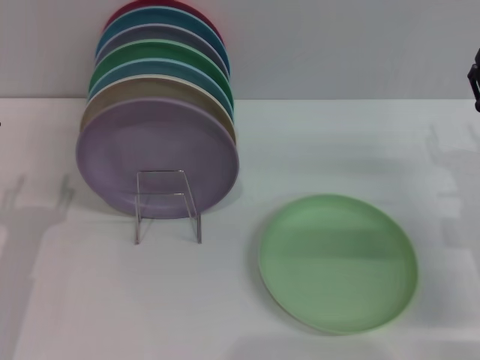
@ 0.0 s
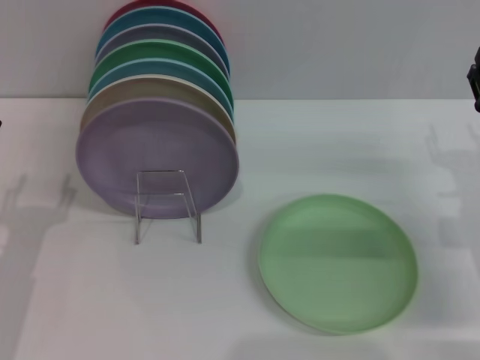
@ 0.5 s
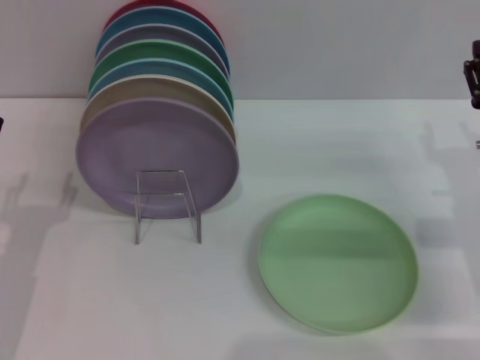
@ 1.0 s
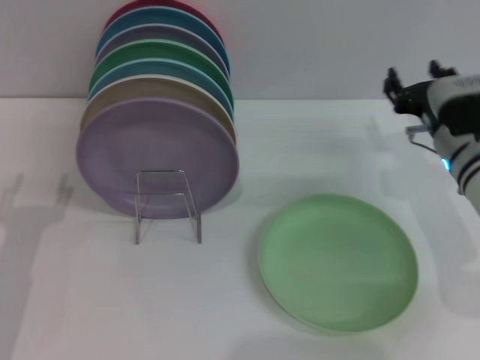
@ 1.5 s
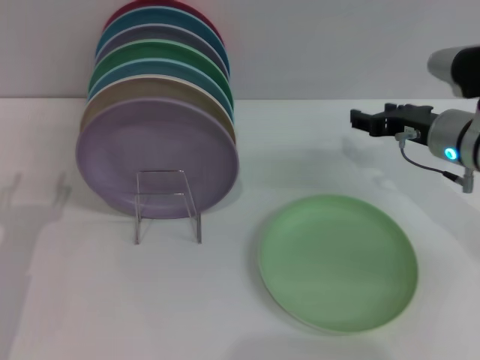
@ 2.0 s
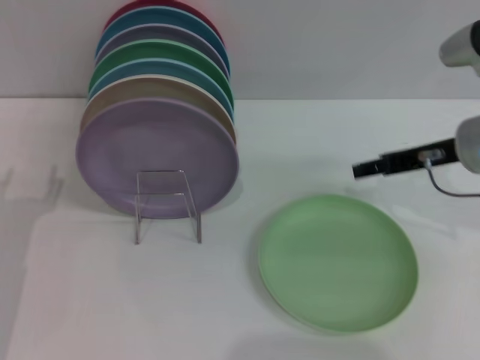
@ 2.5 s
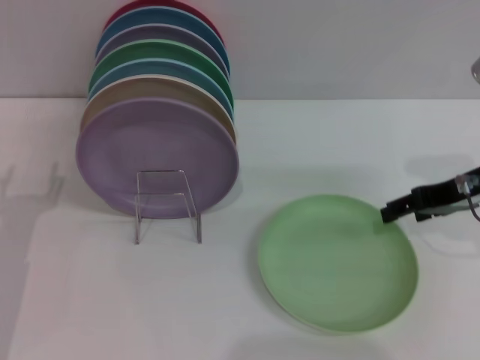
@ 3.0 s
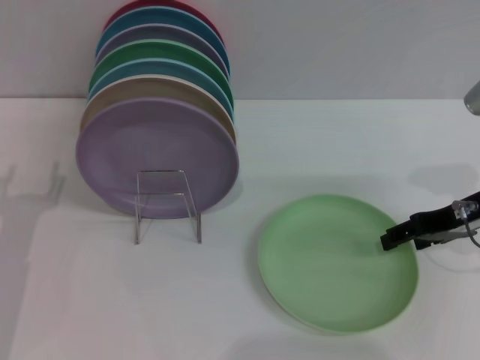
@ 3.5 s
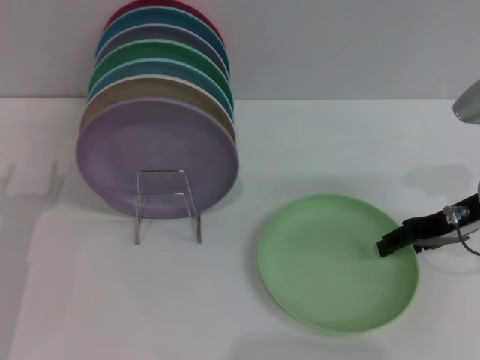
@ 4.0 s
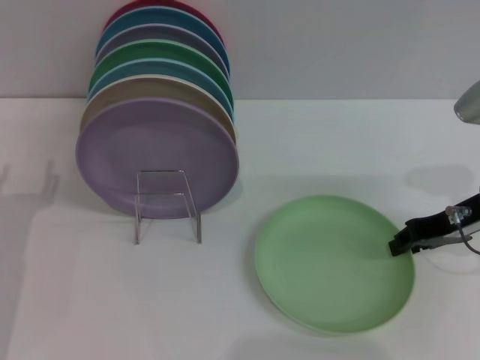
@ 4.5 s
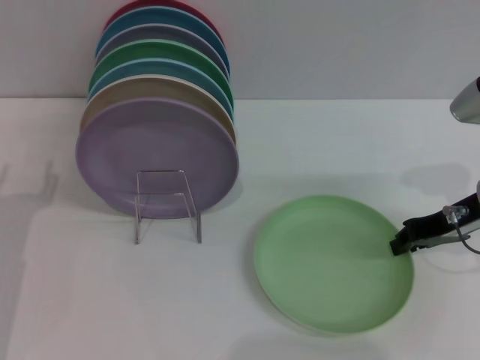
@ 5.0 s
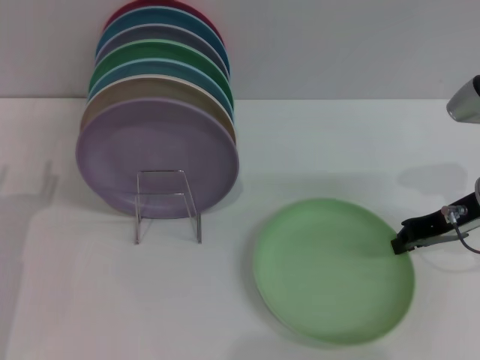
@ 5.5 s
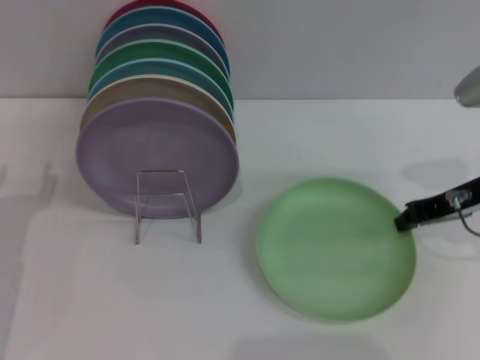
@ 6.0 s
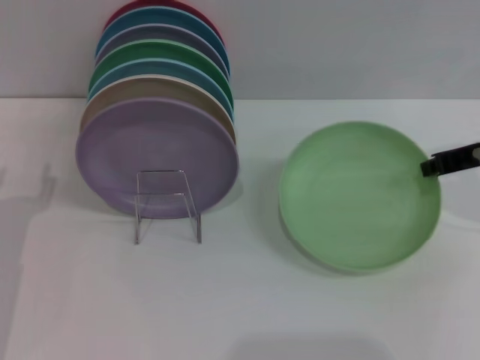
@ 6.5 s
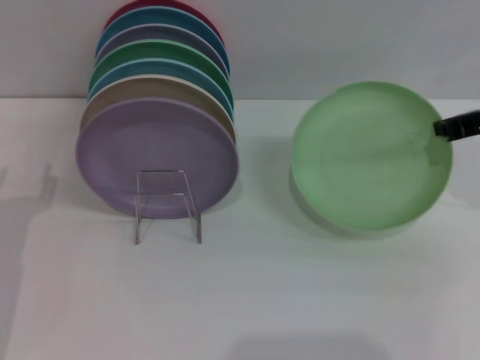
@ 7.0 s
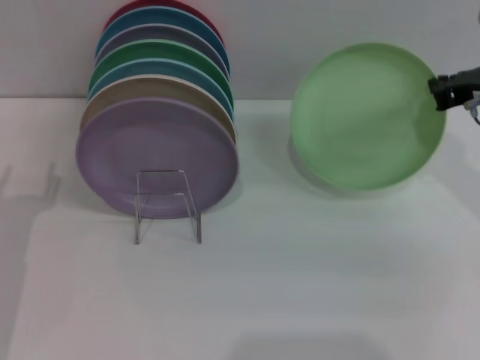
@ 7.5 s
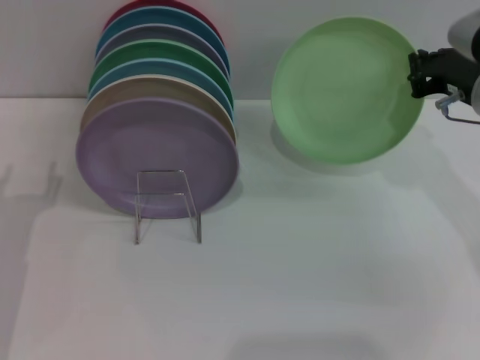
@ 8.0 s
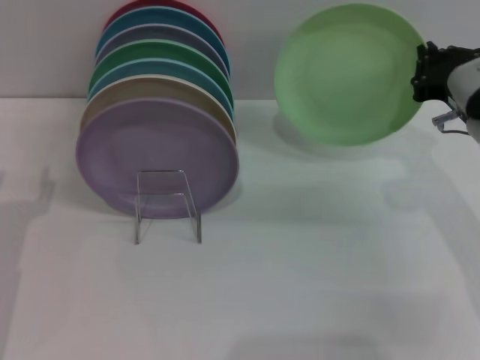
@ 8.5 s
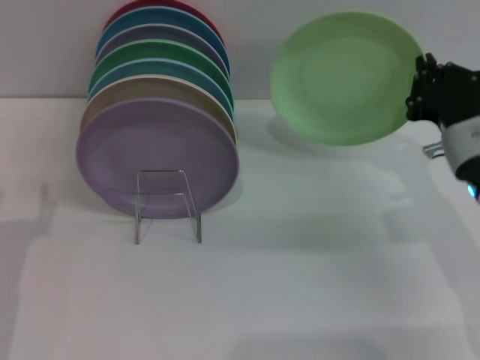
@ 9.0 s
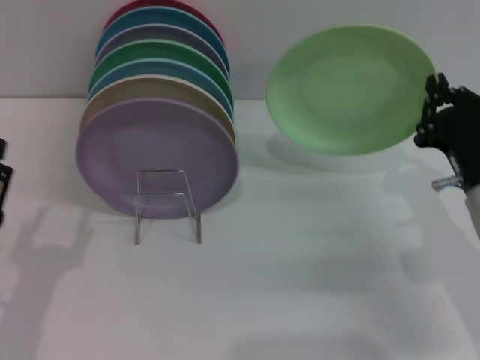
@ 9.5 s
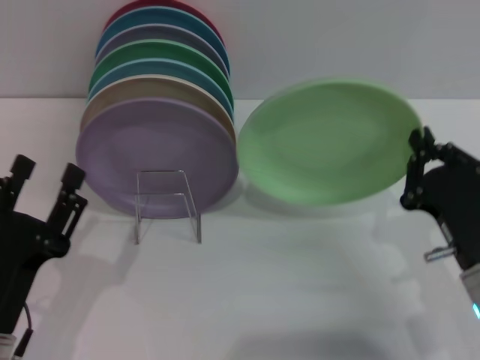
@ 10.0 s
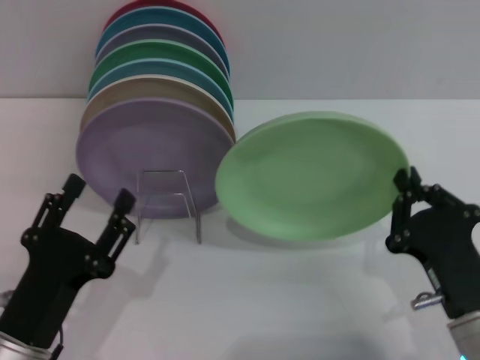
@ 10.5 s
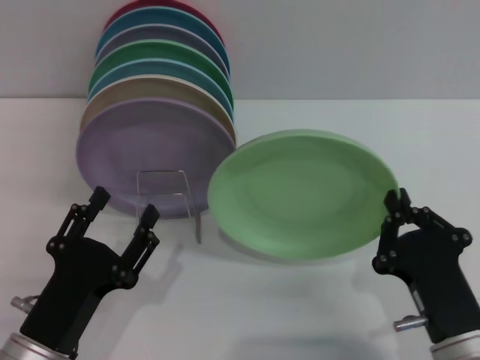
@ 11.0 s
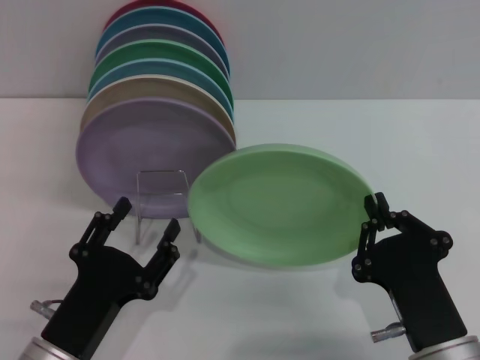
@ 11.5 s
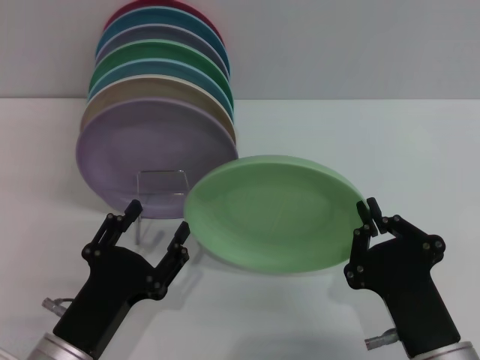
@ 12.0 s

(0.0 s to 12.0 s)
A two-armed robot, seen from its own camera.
Task of the whole recording: Grip the plate with one hand, pass it to the other, then set it on the shelf.
Step, 0.0 s - 6.5 s: Pick up the plate with the right gripper.
0.0 s - 2.0 s: The right gripper goes roughly 5 cm forward.
2.0 s - 4.0 s: The right gripper shifts by roughly 5 cm.
4.0 s - 6.0 s: The right gripper closes up.
8.0 s - 10.0 s: The right gripper travels backward and downward by roughly 20 cm. Meanwhile the left gripper travels backward and to the right by approximately 10 cm.
10.0 s - 12.0 s: The left gripper heads to the right, covering approximately 5 cm; the right gripper shifts about 10 cm backward and to the left.

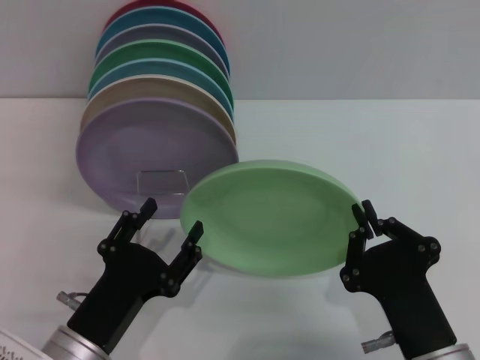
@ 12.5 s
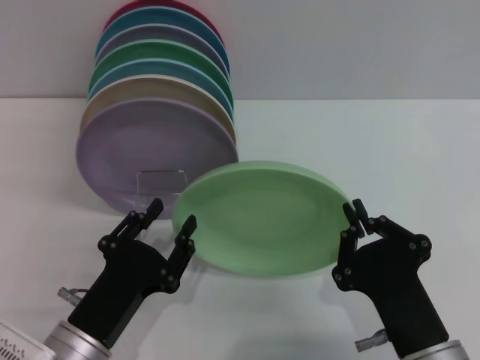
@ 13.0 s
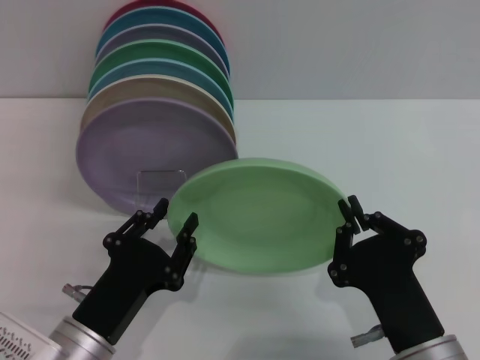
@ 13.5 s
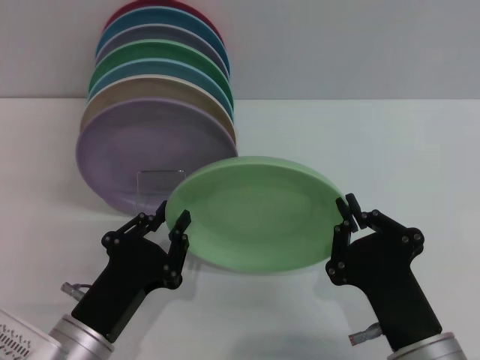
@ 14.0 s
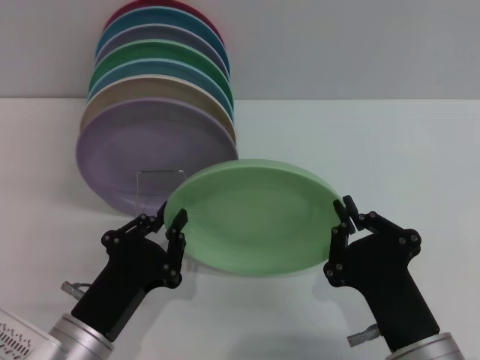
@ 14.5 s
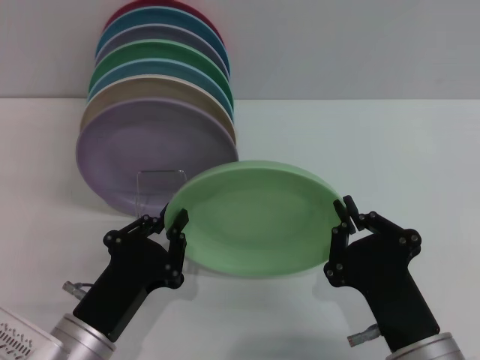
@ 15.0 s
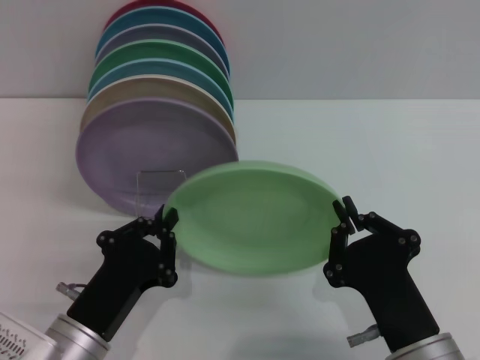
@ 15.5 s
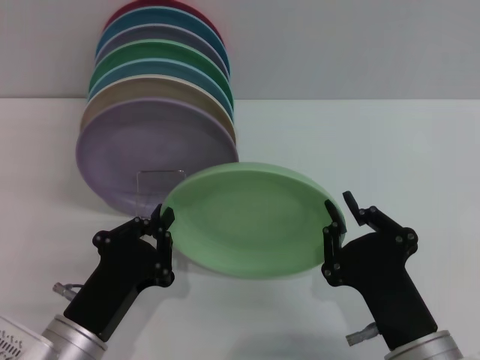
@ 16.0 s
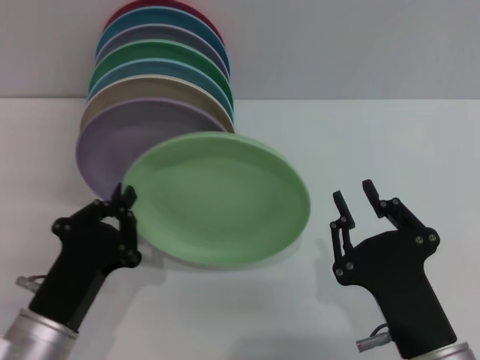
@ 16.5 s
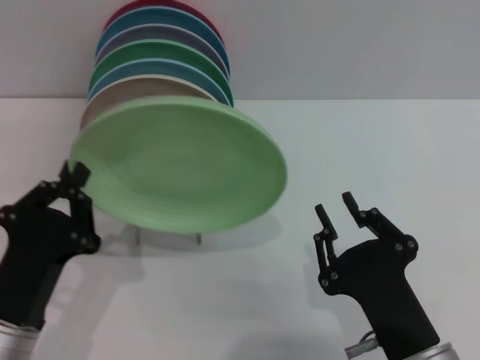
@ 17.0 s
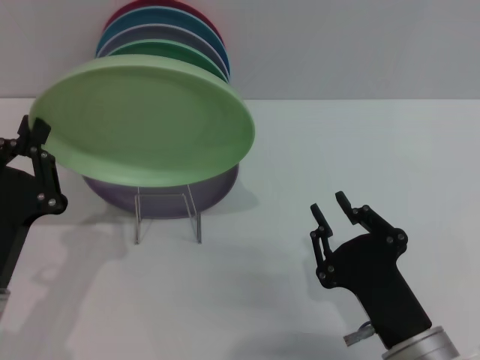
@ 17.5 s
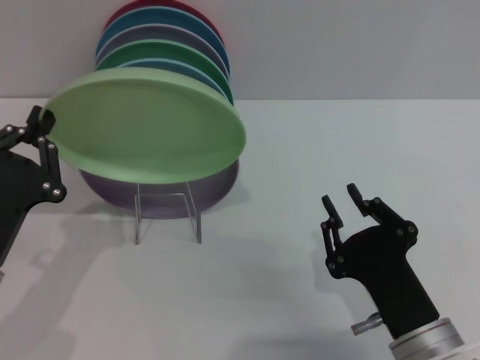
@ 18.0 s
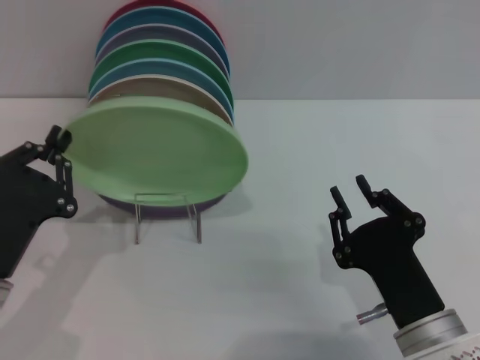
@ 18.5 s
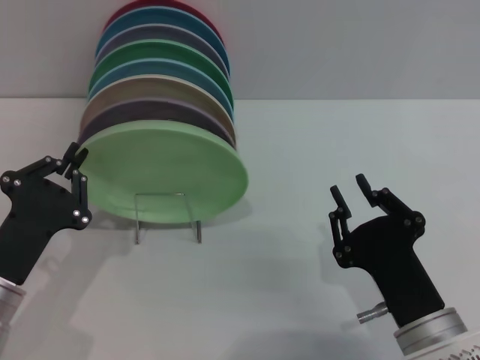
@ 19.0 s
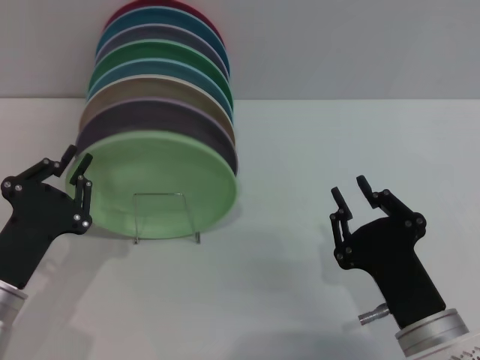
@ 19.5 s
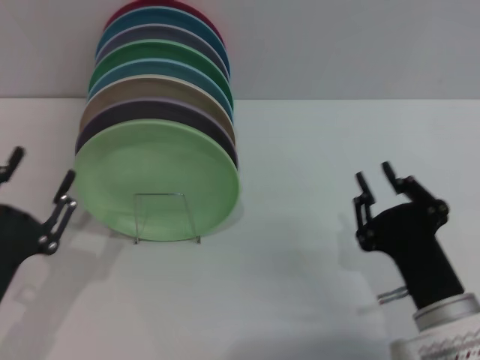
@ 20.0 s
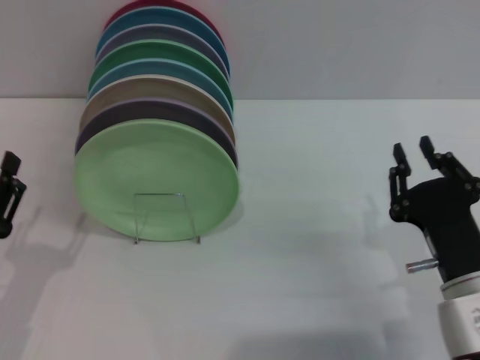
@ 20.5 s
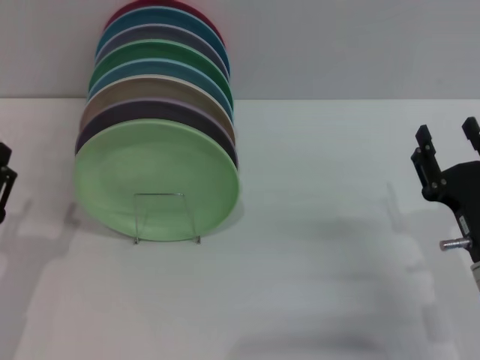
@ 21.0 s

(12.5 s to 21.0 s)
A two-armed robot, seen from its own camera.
Task of the whole recording: Grip the plate with one hand, pass it to the other, then set it on the shelf.
Step, 12.5 s - 16.0 s: Pass the plate from the right gripper to the left gripper.
Step, 16.5 s - 19.0 s: Place the plate on the shelf with the left gripper.
12.5 s - 14.5 s: The left gripper closes.
14.5 s - 16.5 s: The right gripper opens up.
16.5 s - 19.0 s: The left gripper shifts by roughly 5 cm.
19.0 s - 21.0 s: The right gripper heads to the right and forward, covering roughly 10 cm. Meanwhile the left gripper opens.
